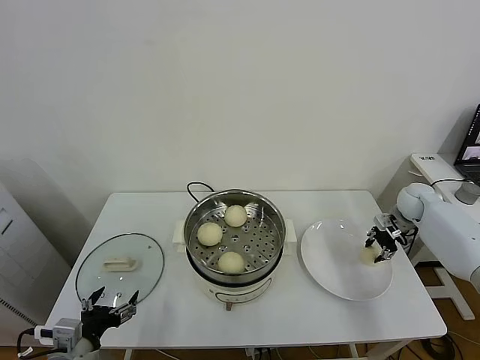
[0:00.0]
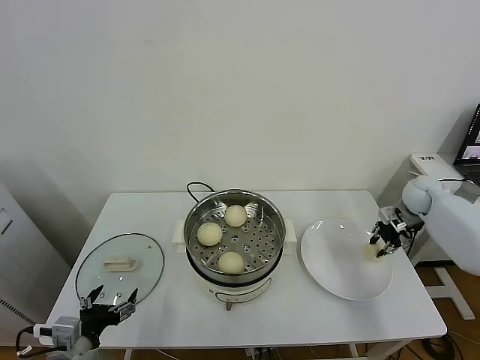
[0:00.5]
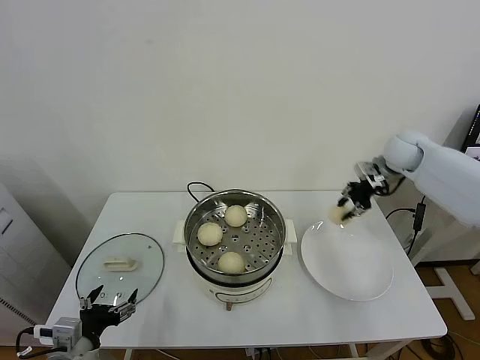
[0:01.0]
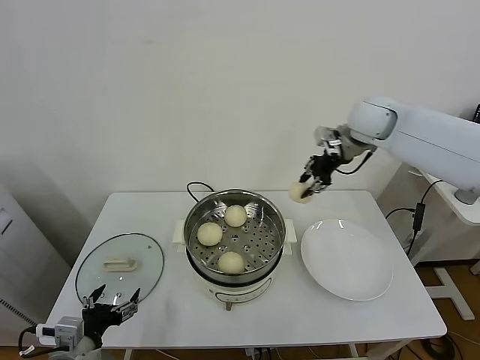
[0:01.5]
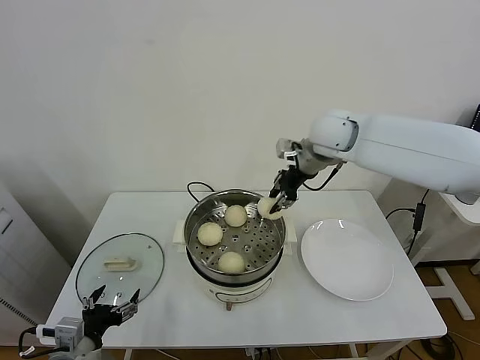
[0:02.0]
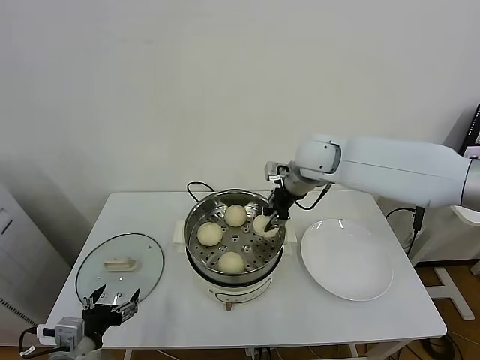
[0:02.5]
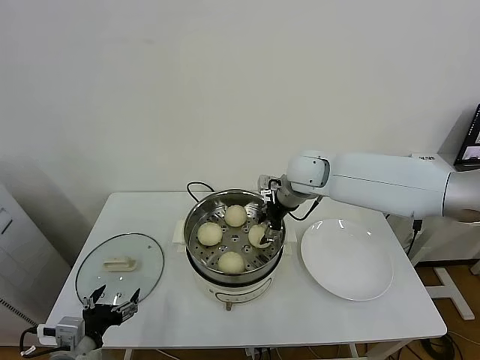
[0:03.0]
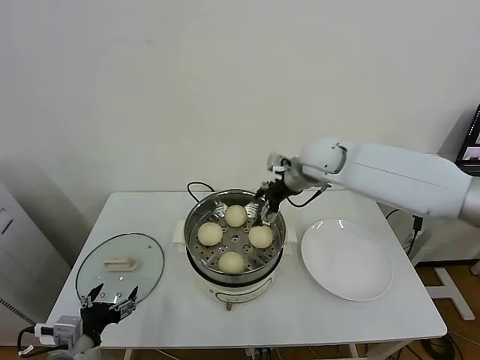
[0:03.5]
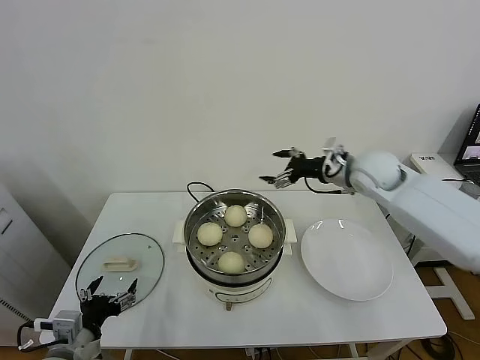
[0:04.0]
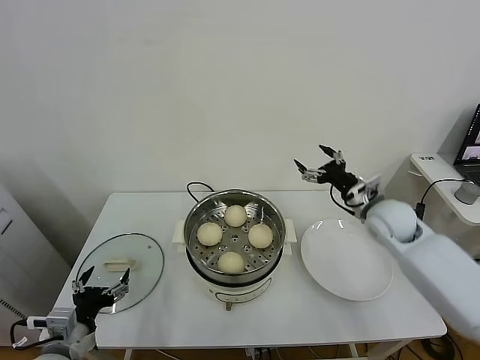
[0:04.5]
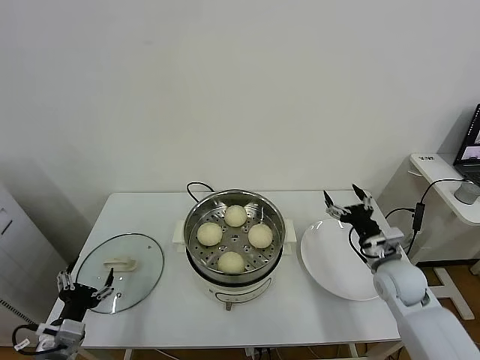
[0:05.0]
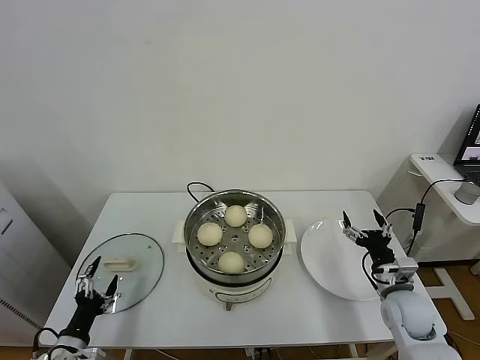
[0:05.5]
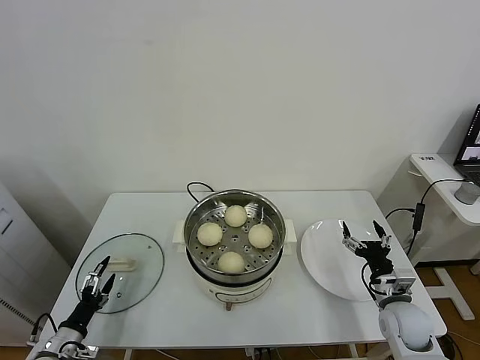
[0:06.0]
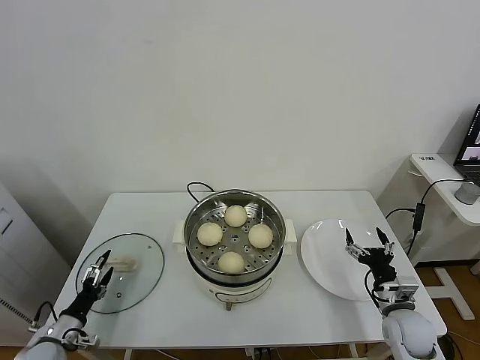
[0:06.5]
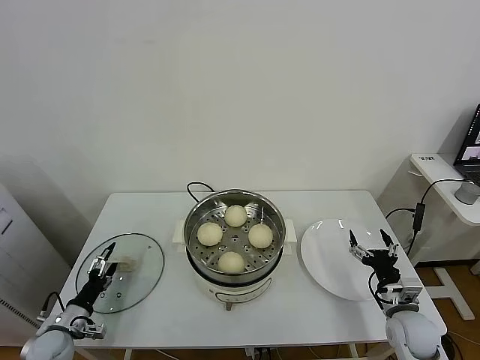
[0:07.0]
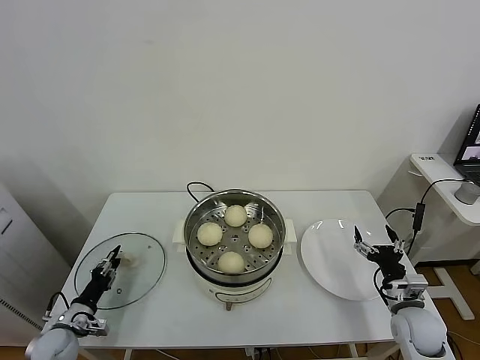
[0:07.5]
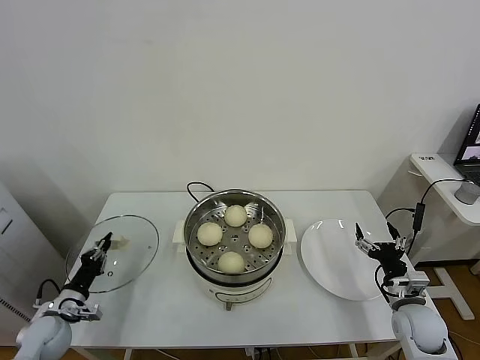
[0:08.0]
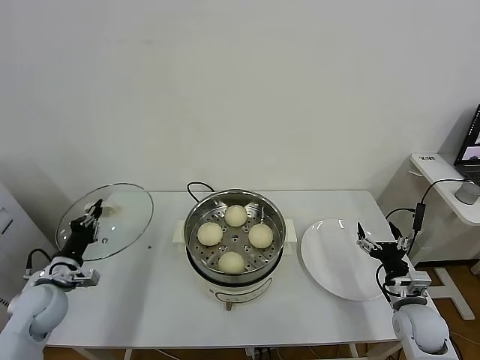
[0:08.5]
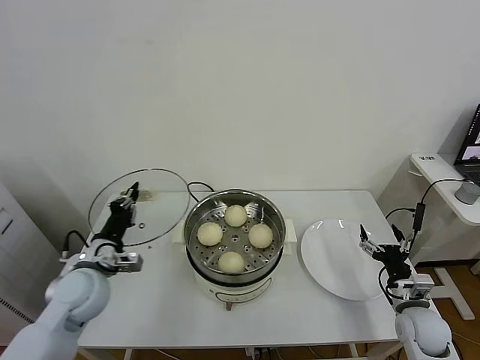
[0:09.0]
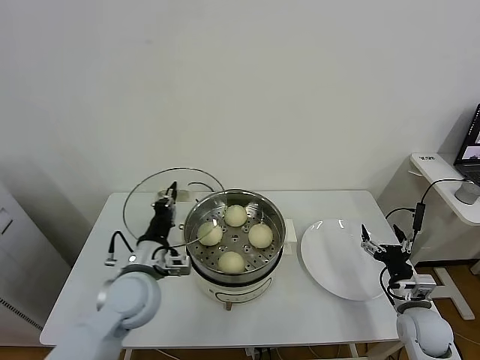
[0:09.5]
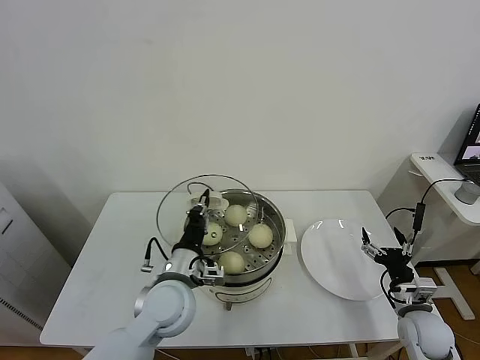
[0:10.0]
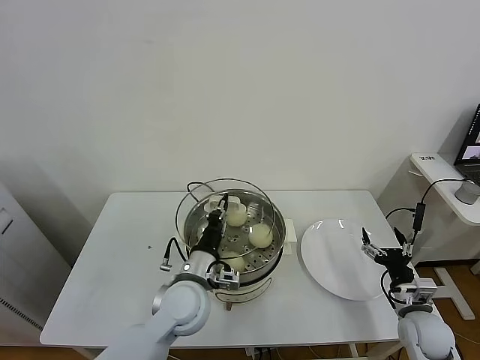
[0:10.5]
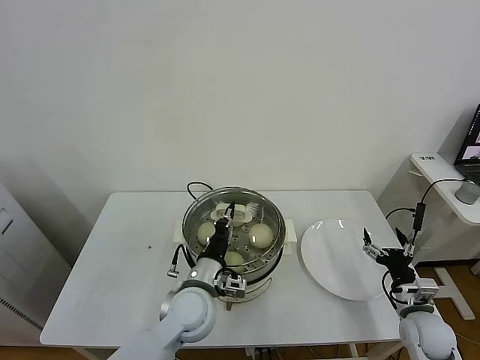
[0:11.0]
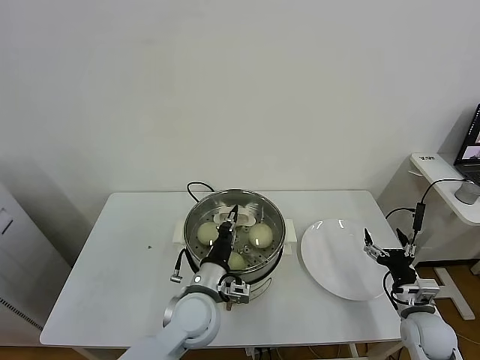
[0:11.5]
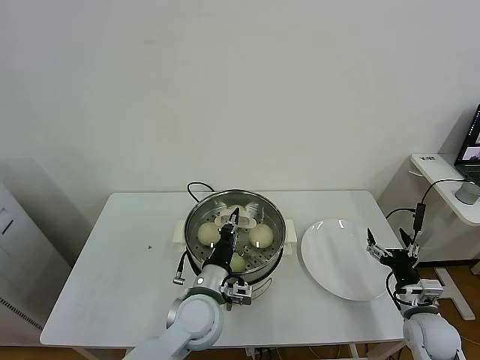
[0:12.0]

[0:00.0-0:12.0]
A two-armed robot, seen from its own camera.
Task of the whole recording: take steamed baozi put them in steamer.
Step, 0:00.5 to 0:03.0: Place the baozi on the steamer with right gripper.
Step, 0:03.5 to 0:08.0: Grasp the pot lid with left gripper.
0:00.0 to 0:02.0: The right gripper is displaced to the left and upward by approximately 35 cm.
0:02.0 to 0:04.0: The right gripper moves to the right and downward, some 10 cm, and opens.
0:04.0 to 0:06.0: The left gripper heads downward and to the left, covering about 15 cm. The right gripper shifts about 35 cm downward and backward.
0:06.0 to 0:08.0: The left gripper travels forward by about 10 cm, and closes its fingers.
0:08.0 to 0:10.0: The left gripper heads to the right and upward, covering some 35 cm.
0:10.0 to 0:12.0: The left gripper goes roughly 5 cm to the right.

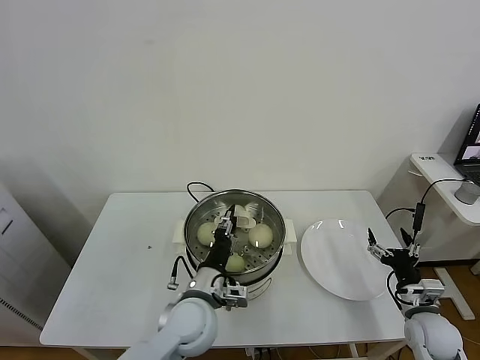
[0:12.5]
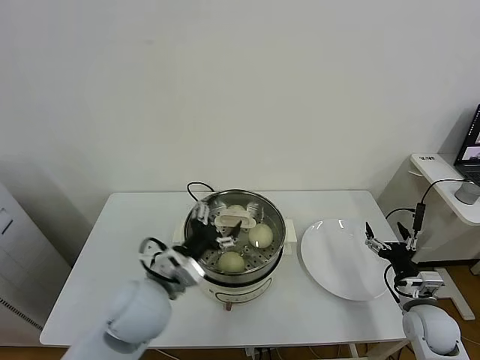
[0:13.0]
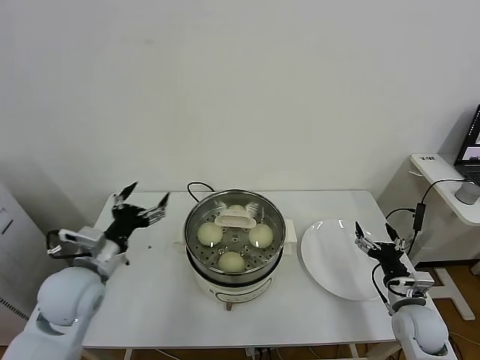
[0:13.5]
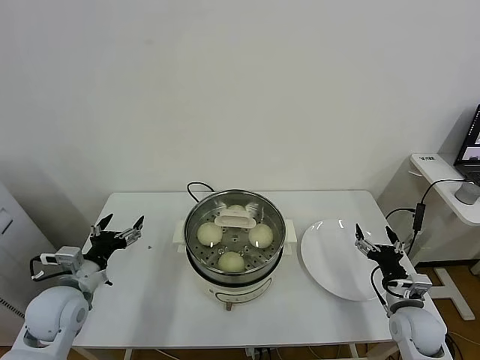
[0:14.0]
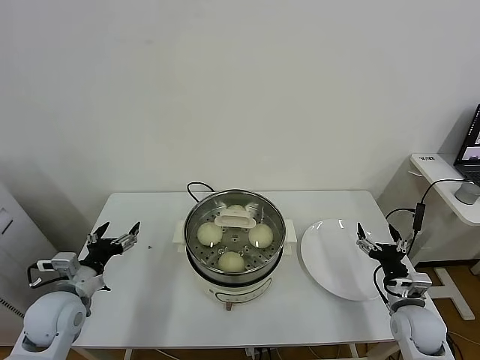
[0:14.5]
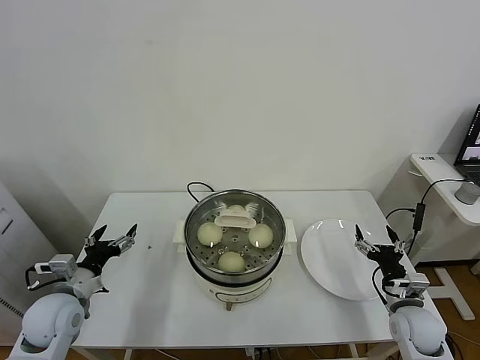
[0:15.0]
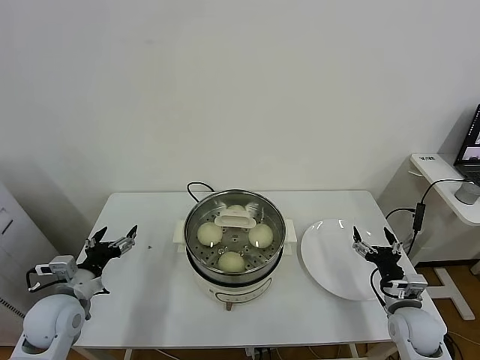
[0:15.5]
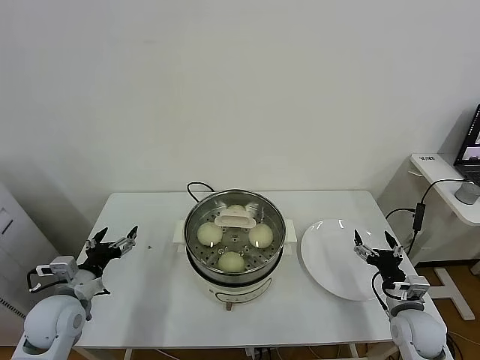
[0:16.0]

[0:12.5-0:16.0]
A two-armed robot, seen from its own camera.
Task of the whole recording: take steamed baozi put them in steamer.
0:12.5 to 0:14.5: The left gripper shifts some 25 cm to the left, and opens its fingers.
0:14.5 to 0:16.0: Both grippers stay about where they are.

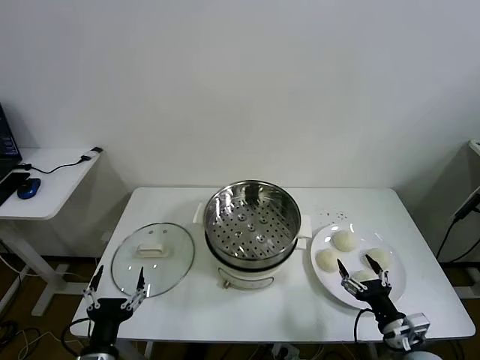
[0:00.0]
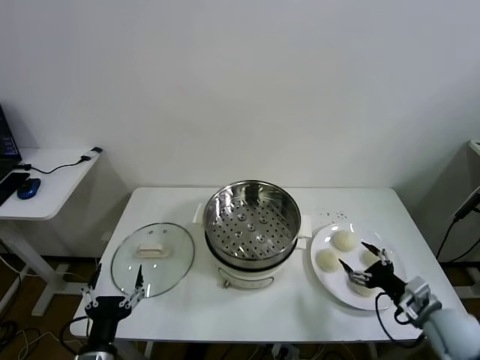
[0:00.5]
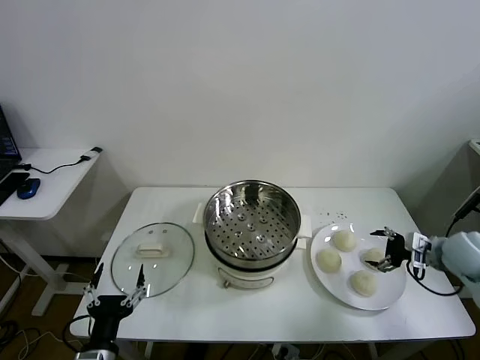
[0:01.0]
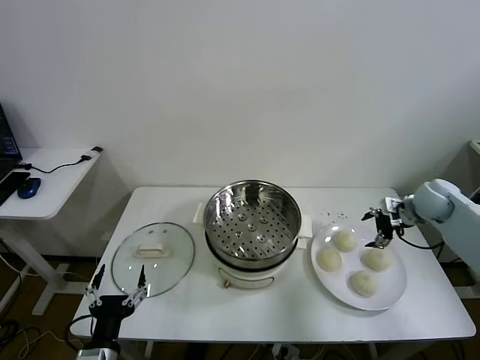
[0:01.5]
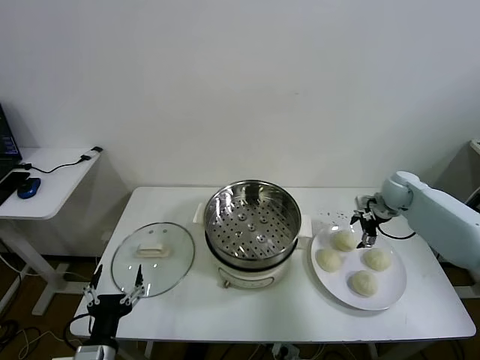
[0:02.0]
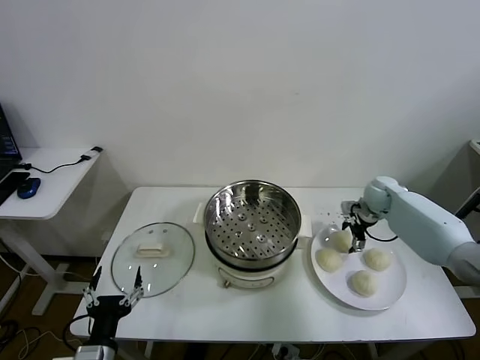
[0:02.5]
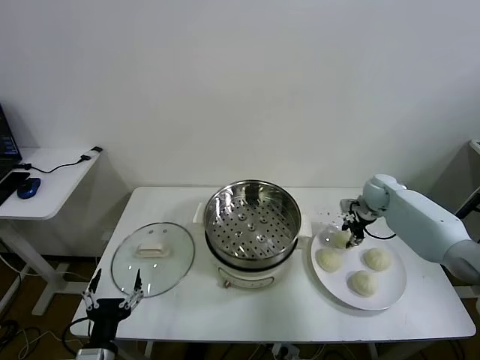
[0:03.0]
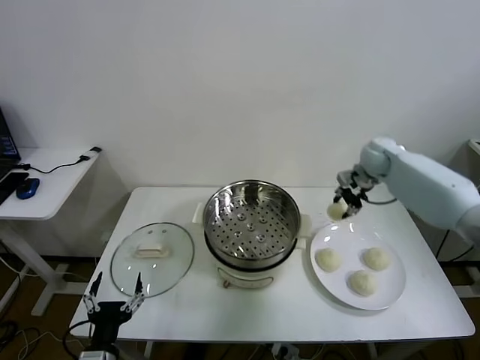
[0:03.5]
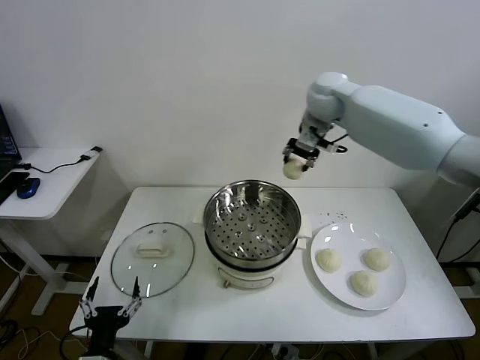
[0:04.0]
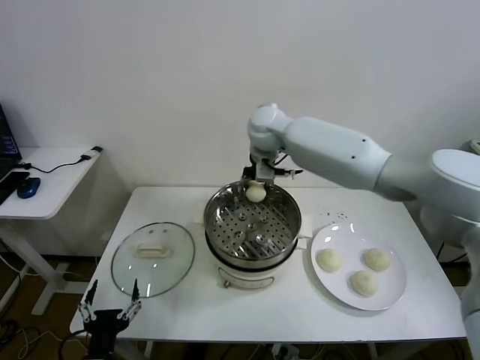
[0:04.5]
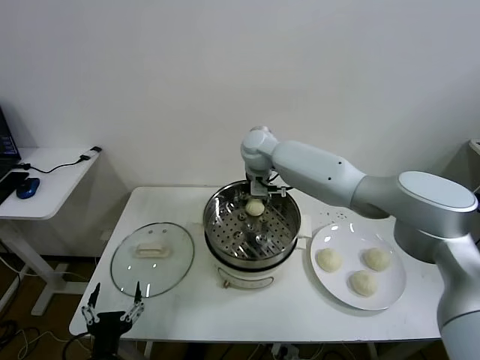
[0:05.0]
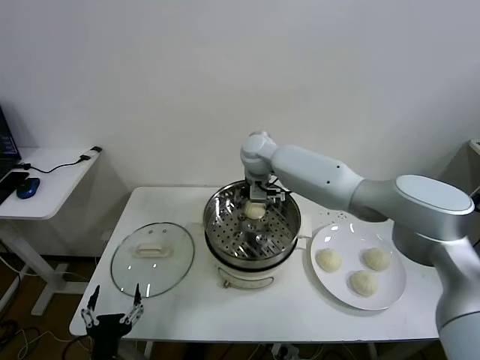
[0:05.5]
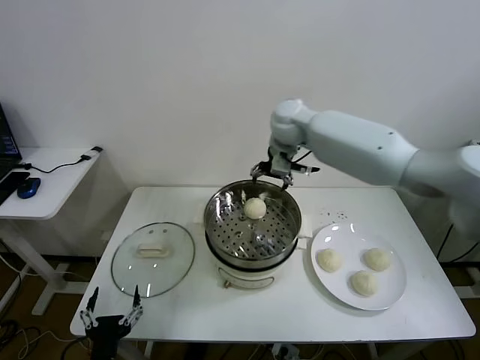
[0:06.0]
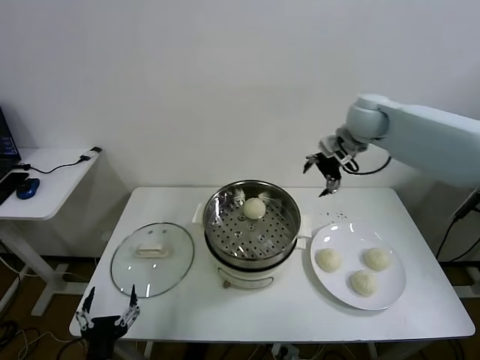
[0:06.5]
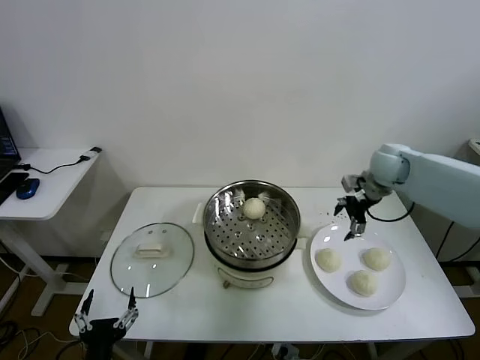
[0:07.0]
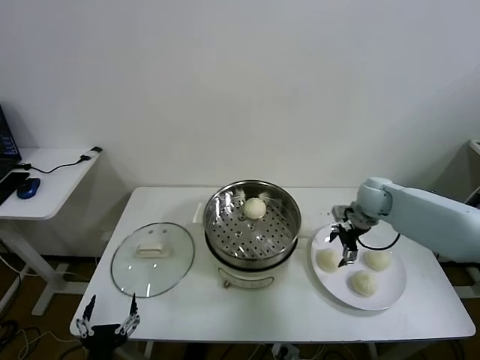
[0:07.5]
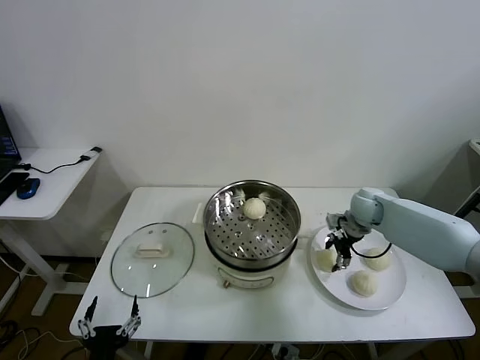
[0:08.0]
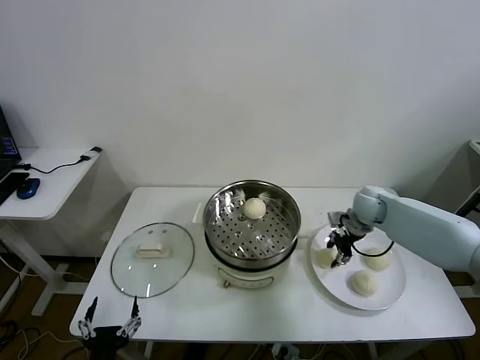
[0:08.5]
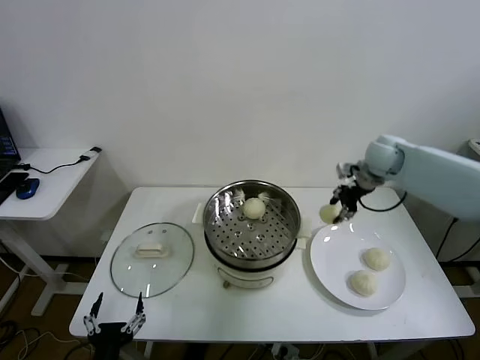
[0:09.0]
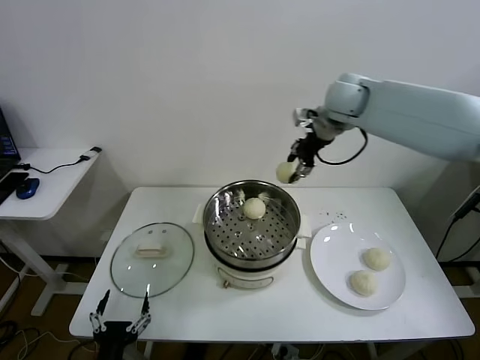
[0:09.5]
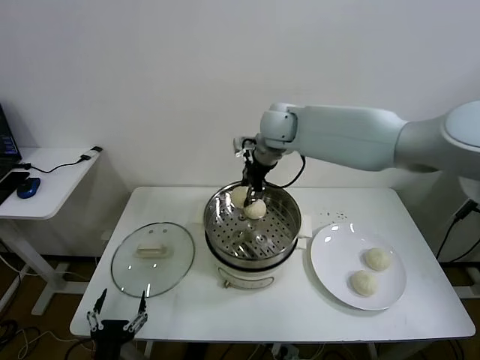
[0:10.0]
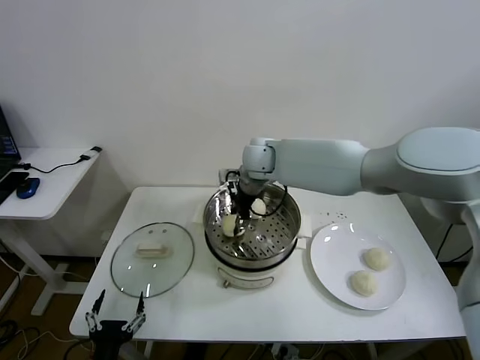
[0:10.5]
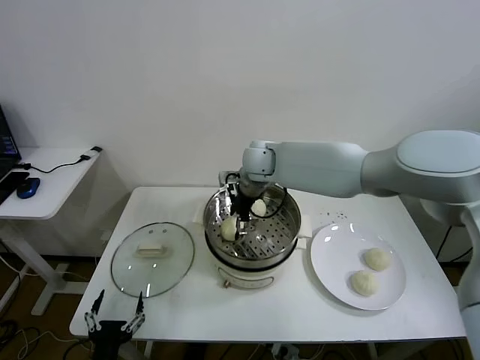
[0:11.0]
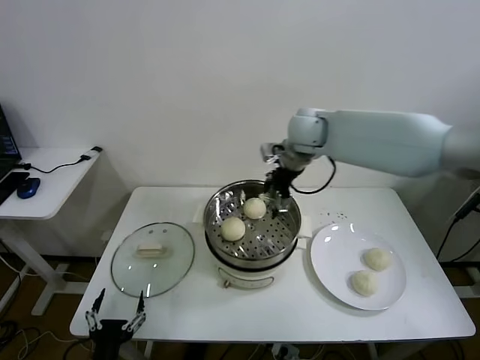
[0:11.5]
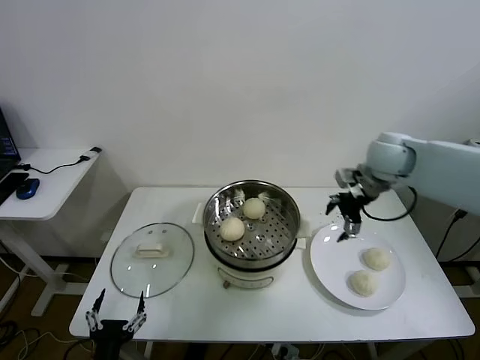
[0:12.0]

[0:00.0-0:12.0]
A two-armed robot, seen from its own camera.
Task of the whole recording: take steamed baozi put them in steamer.
Step, 0:00.0 to 0:02.5: Grasp the baozi in the plate with right gripper.
Step, 0:03.0 to 0:05.5: Place the baozi on the steamer with right gripper.
Step, 0:06.0 to 0:08.0: Grasp the baozi in the plate with right gripper.
Step, 0:08.5 to 0:11.0: Place the baozi on the steamer with right gripper.
0:02.0 to 0:04.0: The right gripper shifts some 35 cm to the left and upward, and closes its fingers.
0:04.0 to 0:06.0: The right gripper goes downward and returns, approximately 15 cm each way, and opens.
0:06.0 to 0:08.0: The right gripper travels downward and to the right by about 30 cm, and closes its fingers.
0:08.0 to 0:10.0: The right gripper shifts some 35 cm to the left and upward, and closes.
0:10.0 to 0:12.0: The right gripper shifts some 25 cm to the right, and opens up.
